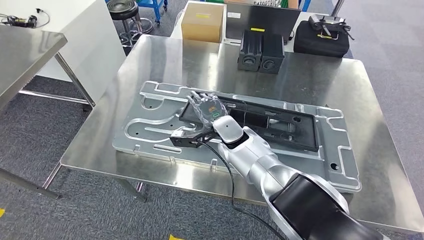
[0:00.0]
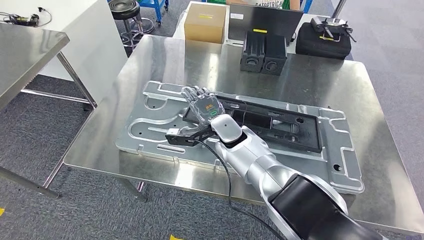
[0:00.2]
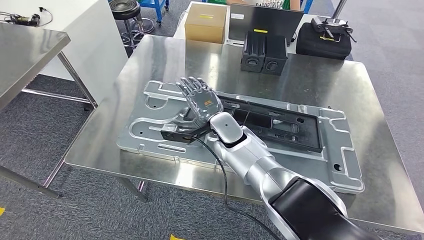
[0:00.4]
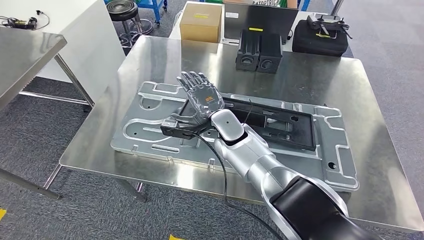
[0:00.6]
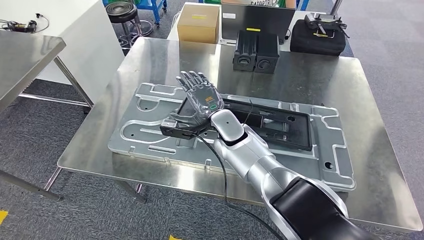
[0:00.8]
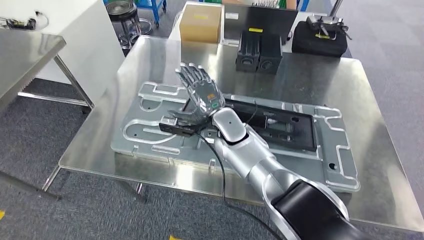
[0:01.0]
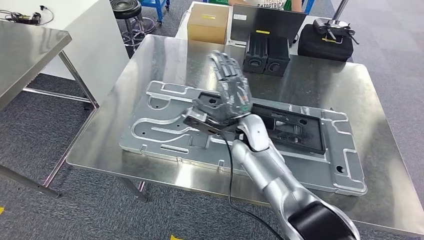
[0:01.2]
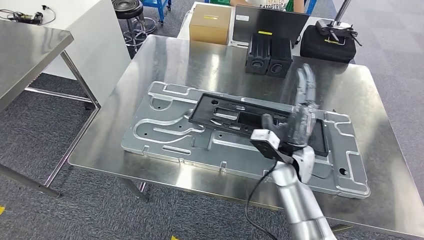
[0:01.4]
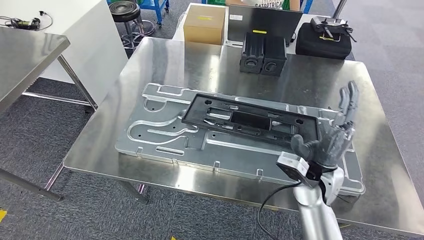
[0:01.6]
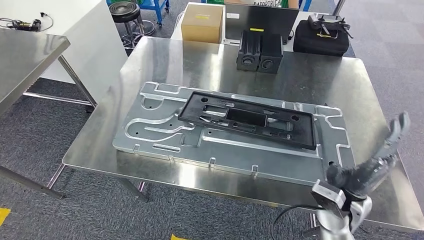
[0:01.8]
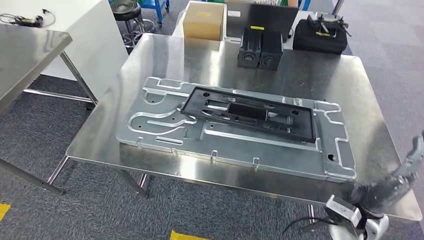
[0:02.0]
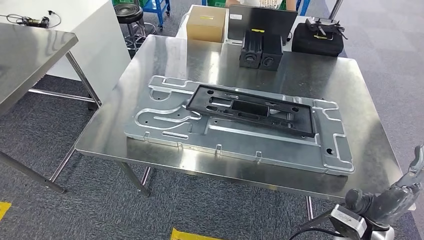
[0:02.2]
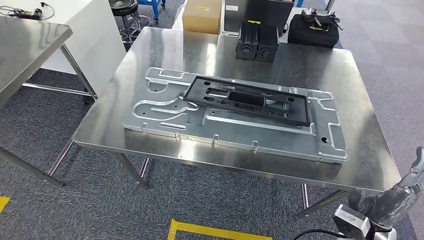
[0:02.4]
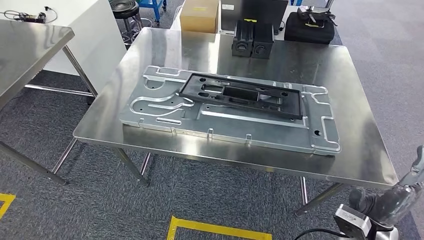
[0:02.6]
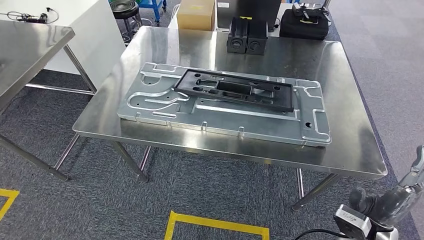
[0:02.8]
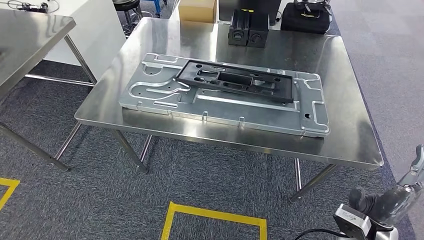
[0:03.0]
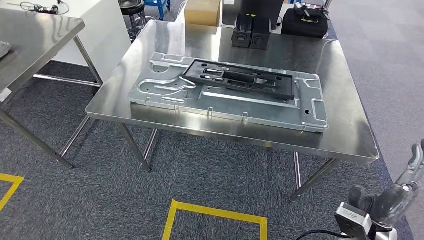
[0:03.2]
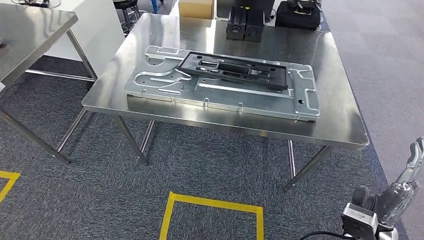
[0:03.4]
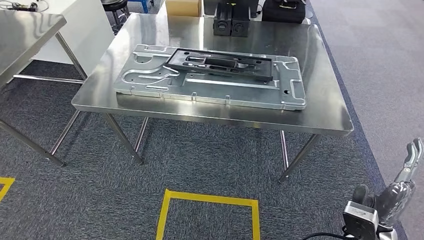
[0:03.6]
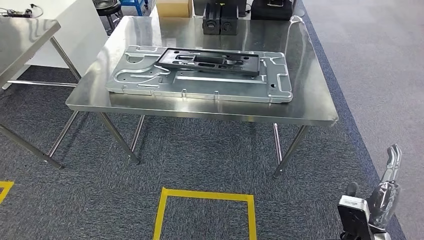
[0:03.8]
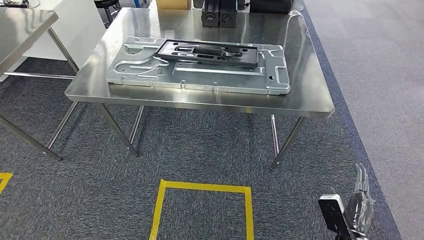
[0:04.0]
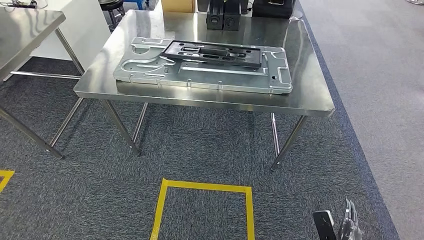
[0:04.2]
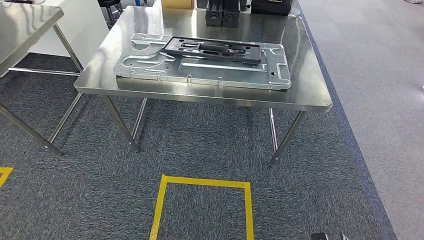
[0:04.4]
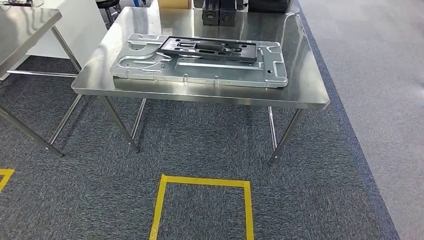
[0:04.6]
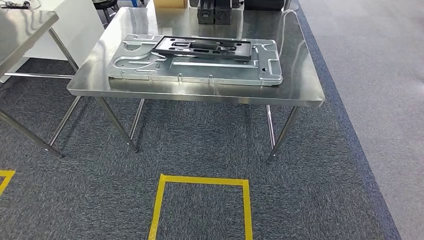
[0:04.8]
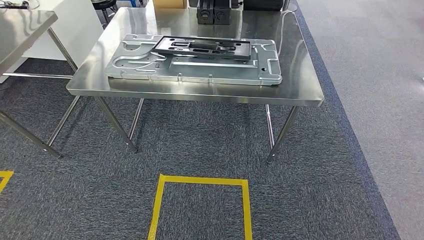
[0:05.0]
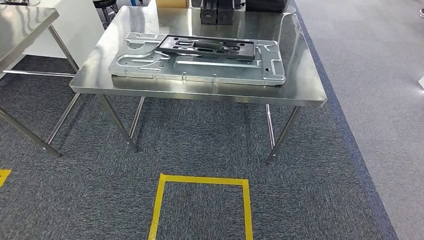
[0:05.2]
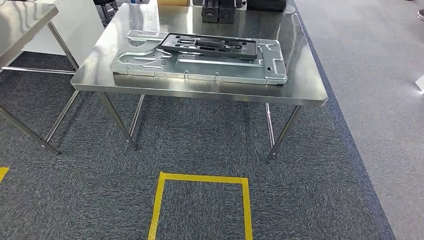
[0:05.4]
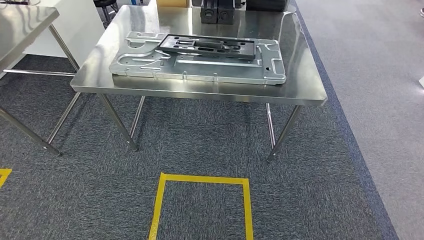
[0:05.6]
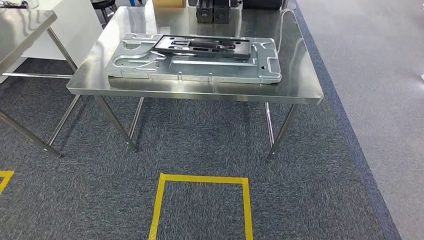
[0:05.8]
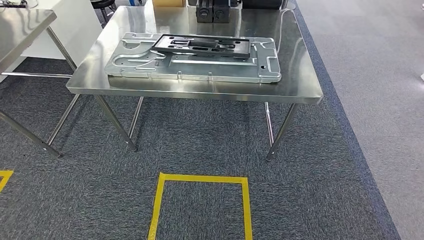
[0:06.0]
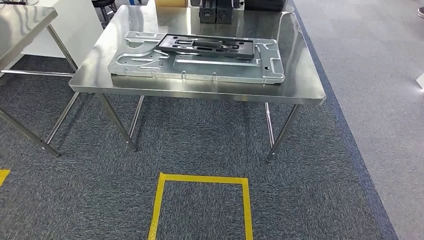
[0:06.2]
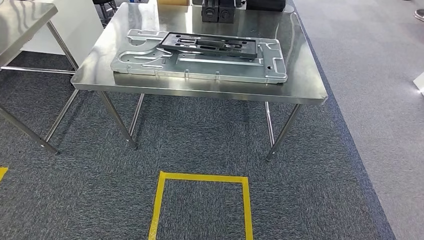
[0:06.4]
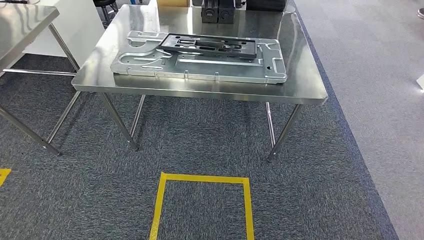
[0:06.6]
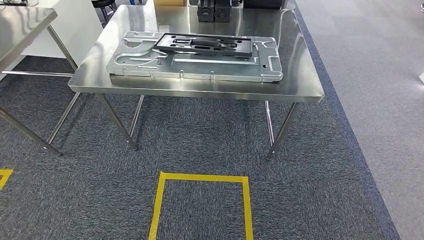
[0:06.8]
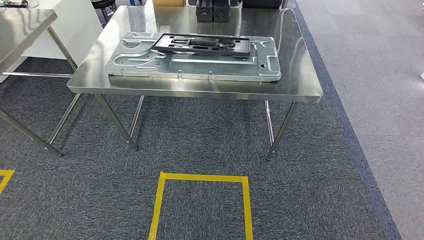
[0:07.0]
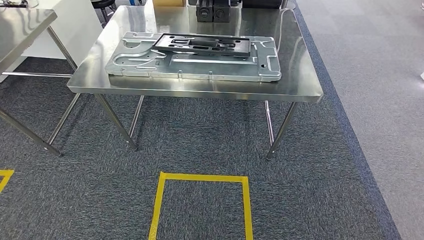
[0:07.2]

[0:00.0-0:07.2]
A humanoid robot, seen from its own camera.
Step, 0:00.0 to 0:02.2: Insert the large material into the corresponding slot on the workbench.
Step, 0:02.4 to 0:07.2: Move to the initial position of the shelf.
0:04.4 to 0:05.8: The right hand travels to the left by roughly 5 cm.

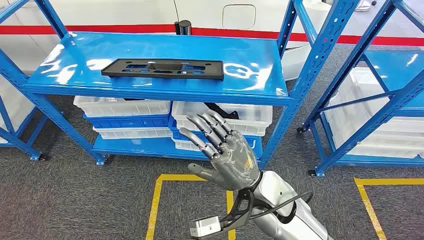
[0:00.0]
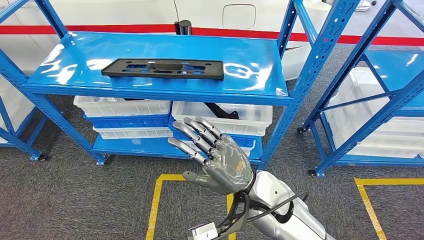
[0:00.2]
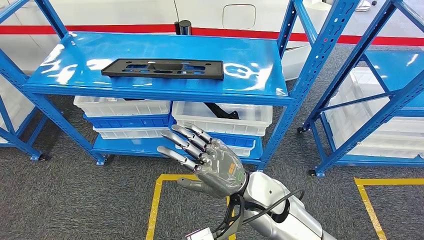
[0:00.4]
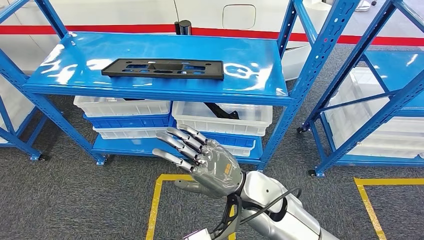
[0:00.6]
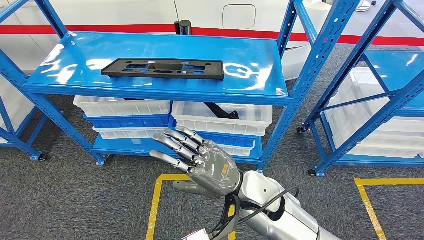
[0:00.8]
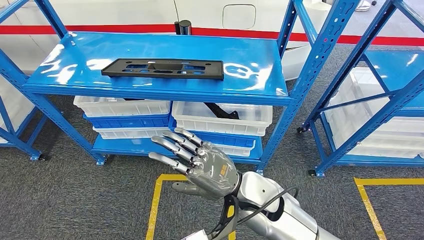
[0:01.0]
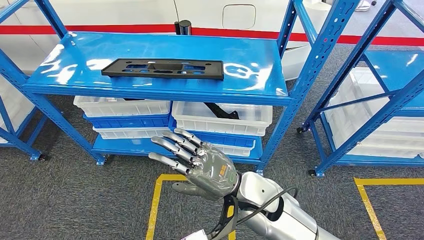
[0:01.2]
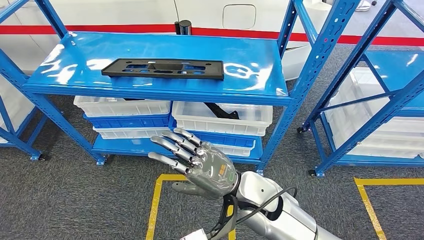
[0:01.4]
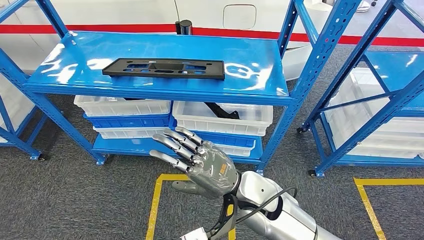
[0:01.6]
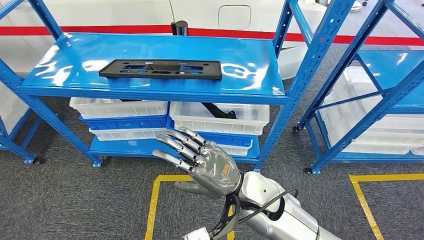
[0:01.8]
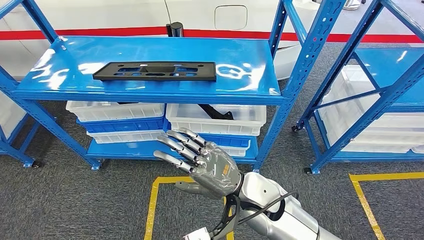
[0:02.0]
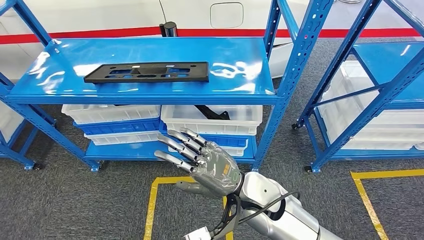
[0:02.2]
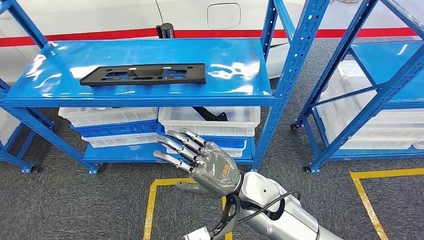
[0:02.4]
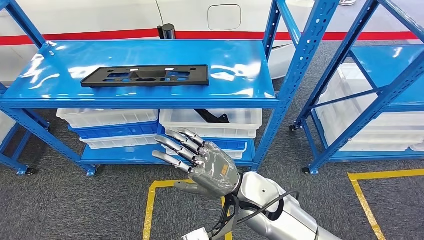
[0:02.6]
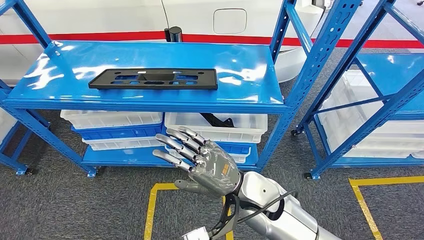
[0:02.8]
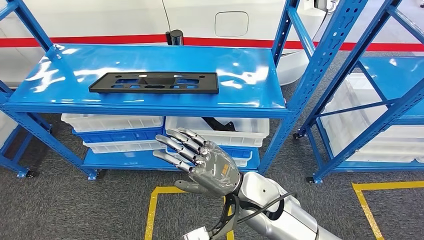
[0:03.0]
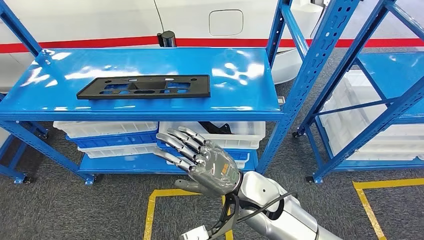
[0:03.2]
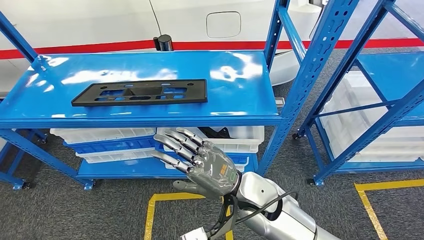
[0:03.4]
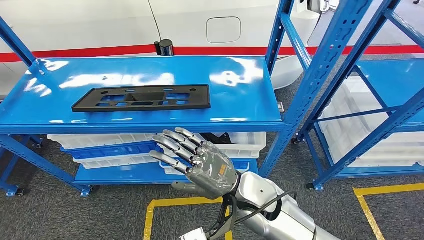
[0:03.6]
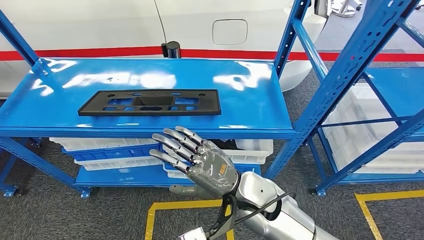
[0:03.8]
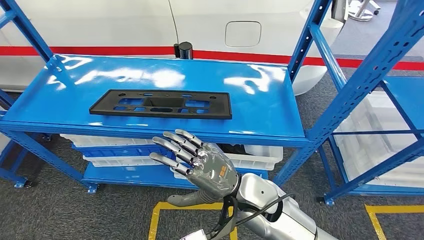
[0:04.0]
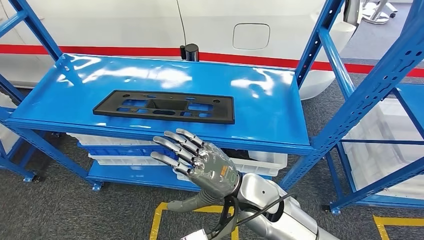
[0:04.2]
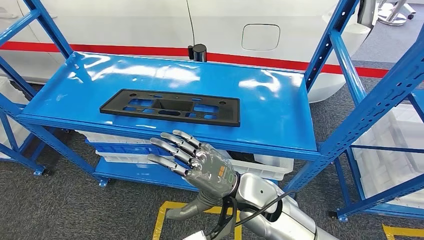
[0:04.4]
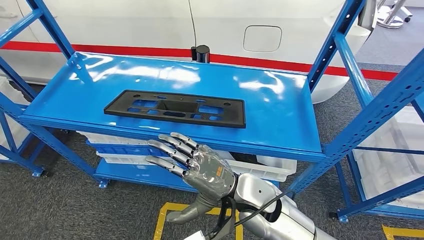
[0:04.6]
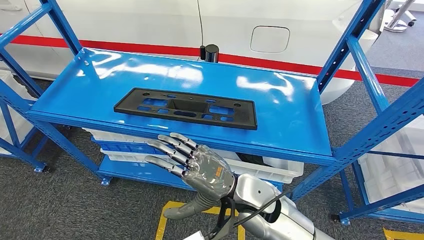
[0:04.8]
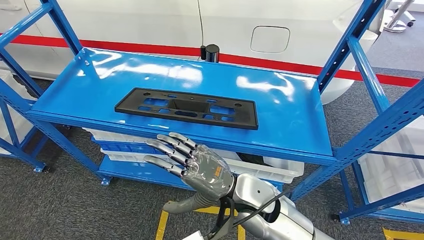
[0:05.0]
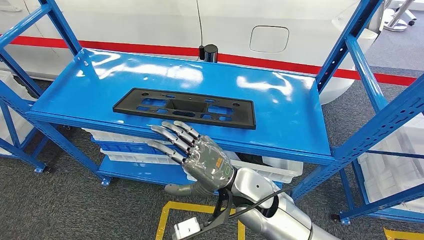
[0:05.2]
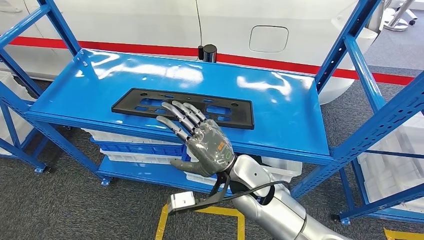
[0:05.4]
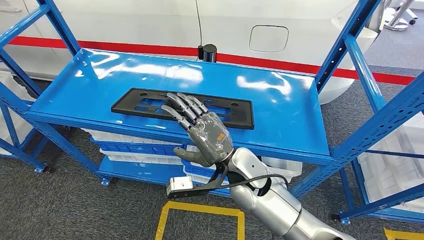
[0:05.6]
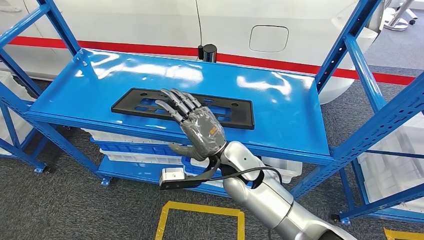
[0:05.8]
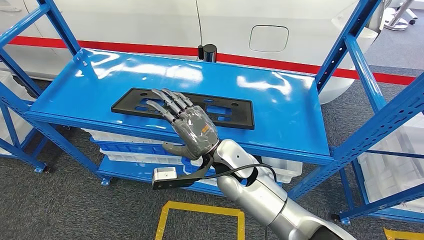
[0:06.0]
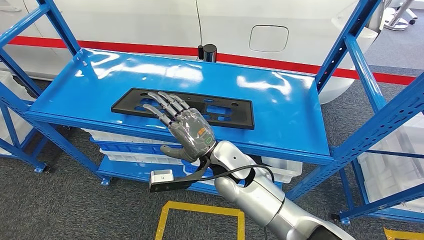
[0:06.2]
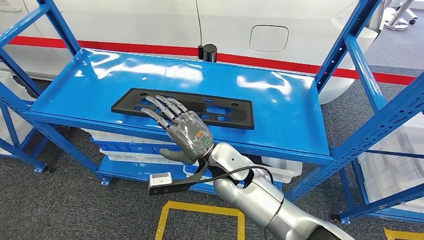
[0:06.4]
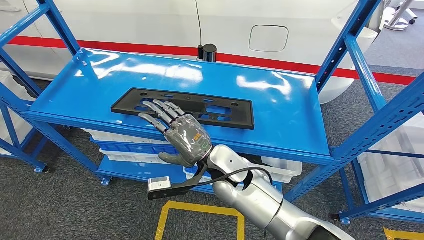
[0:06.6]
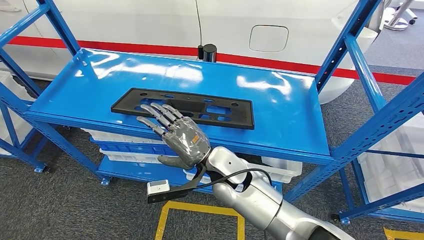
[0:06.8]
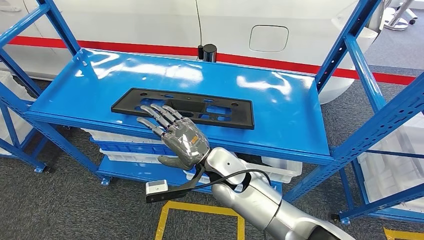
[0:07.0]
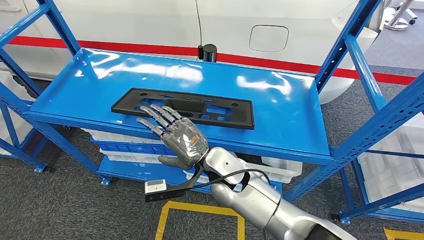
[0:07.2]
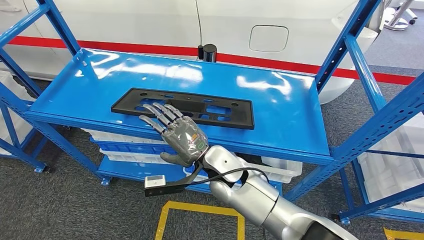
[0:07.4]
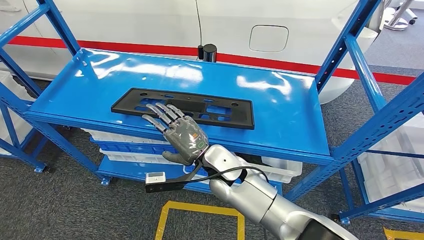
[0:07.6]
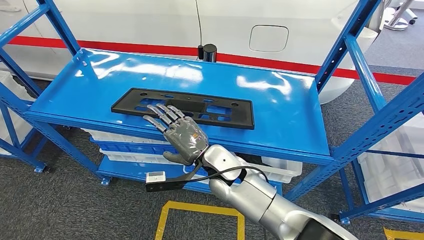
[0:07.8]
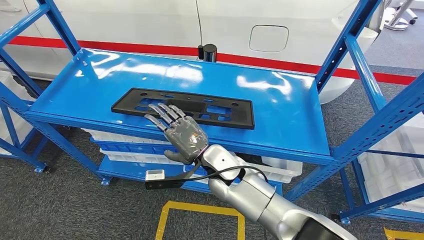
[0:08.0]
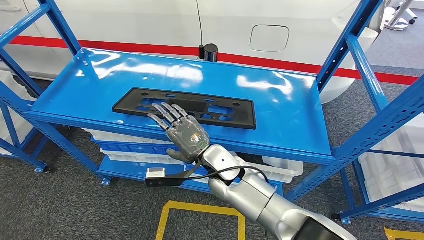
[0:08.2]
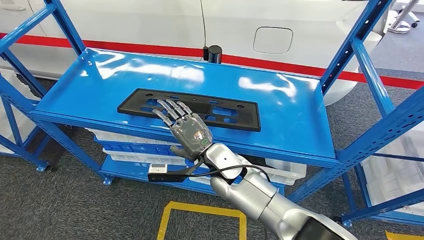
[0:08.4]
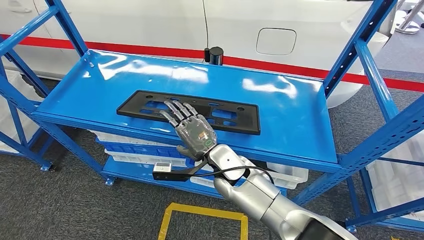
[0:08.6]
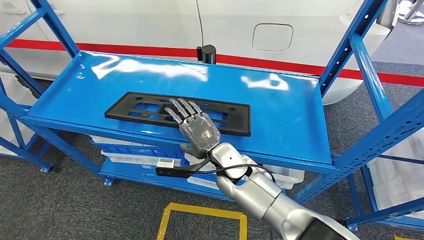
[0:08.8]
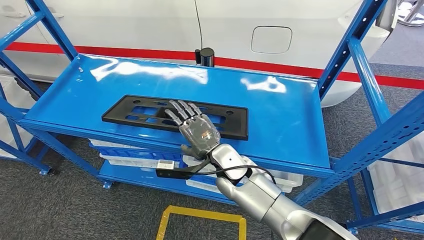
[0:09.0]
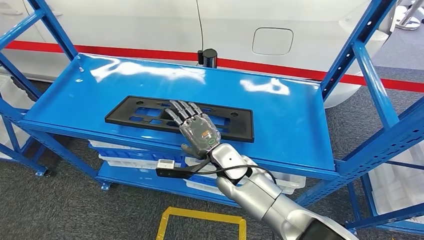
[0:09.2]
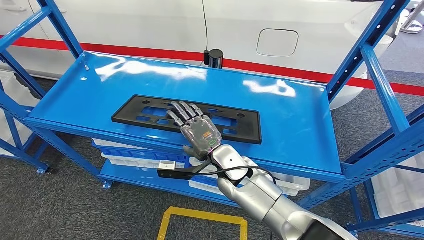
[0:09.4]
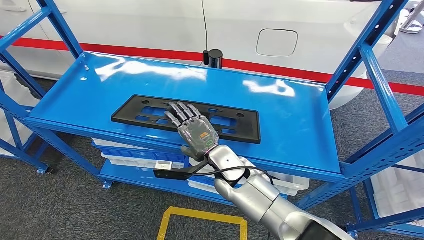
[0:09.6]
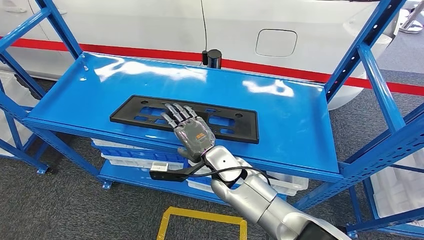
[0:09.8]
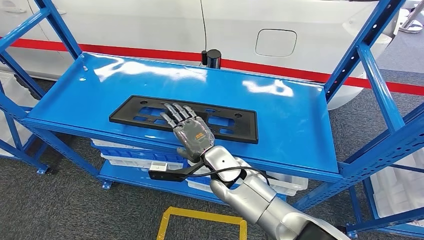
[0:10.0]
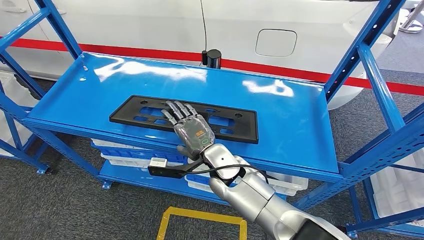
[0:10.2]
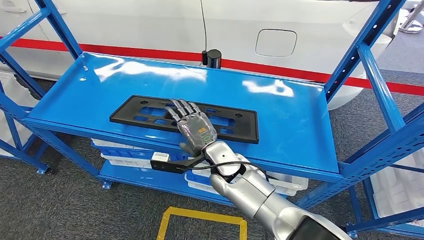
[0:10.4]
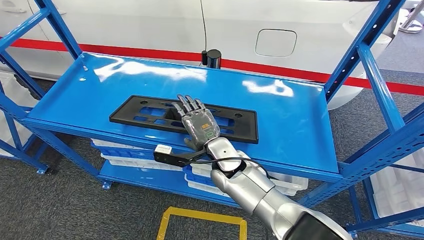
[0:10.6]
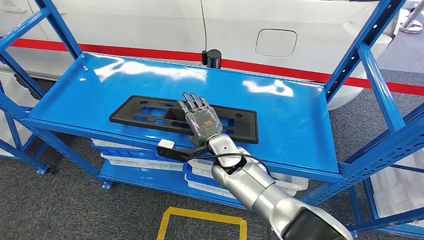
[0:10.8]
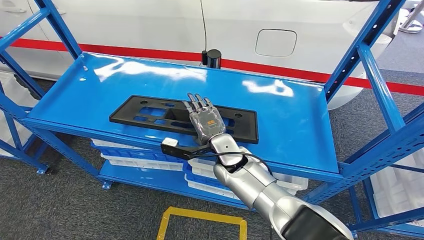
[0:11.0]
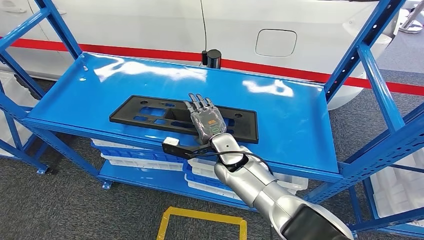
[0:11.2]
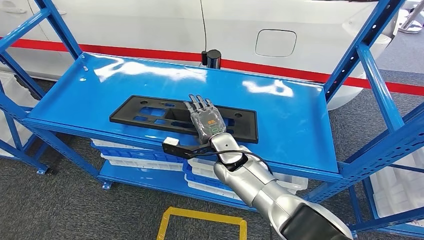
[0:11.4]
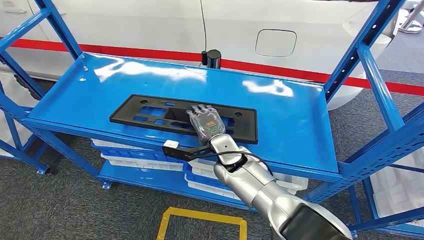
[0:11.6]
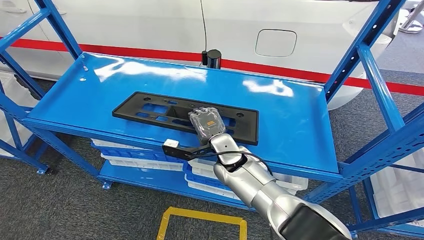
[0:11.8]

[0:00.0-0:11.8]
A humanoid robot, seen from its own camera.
0:06.0 to 0:07.4: The hands stay close to where they were, moving slightly.
0:10.4 to 0:11.8: The hands move only a little.
